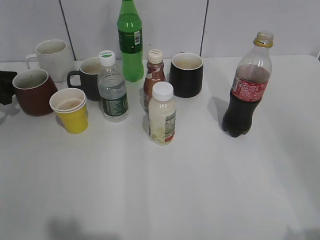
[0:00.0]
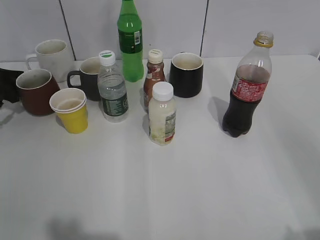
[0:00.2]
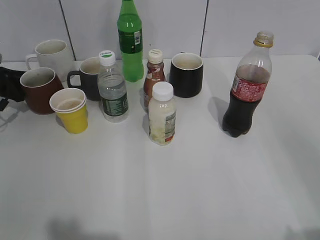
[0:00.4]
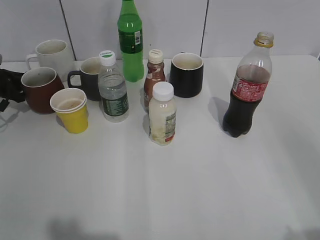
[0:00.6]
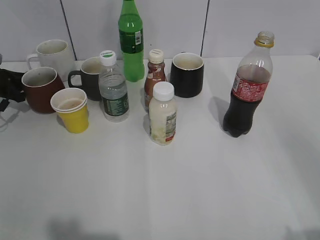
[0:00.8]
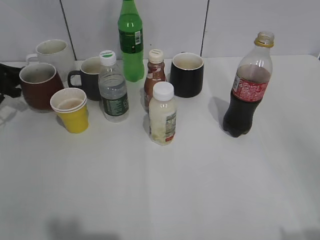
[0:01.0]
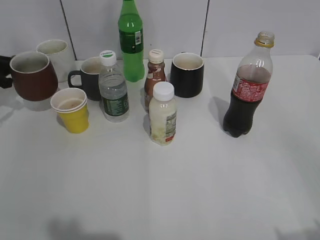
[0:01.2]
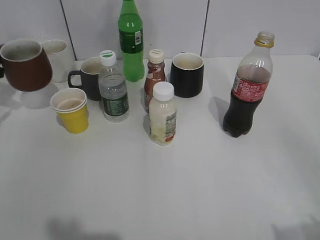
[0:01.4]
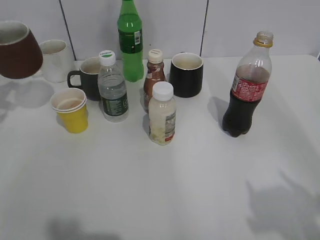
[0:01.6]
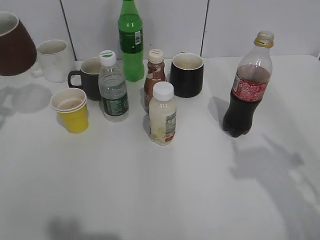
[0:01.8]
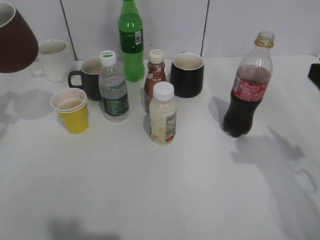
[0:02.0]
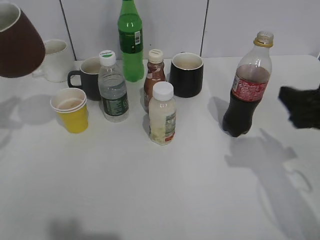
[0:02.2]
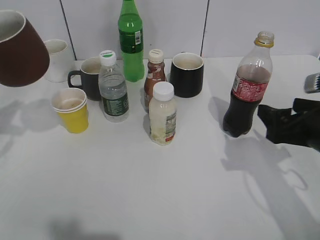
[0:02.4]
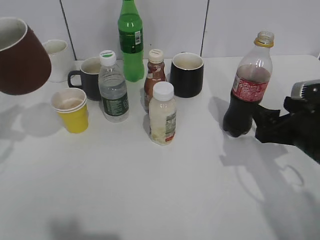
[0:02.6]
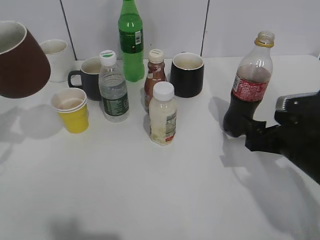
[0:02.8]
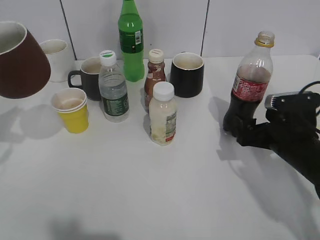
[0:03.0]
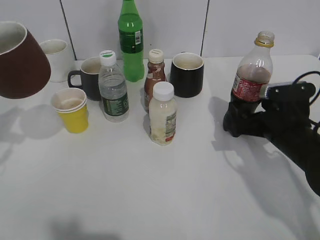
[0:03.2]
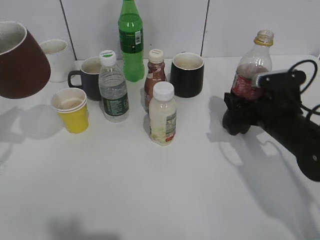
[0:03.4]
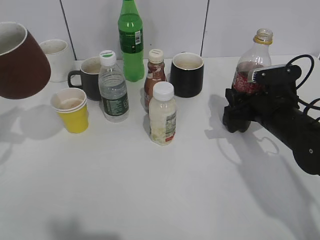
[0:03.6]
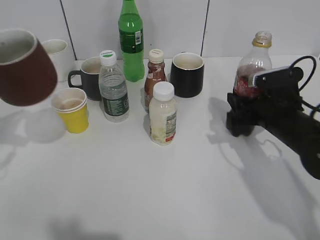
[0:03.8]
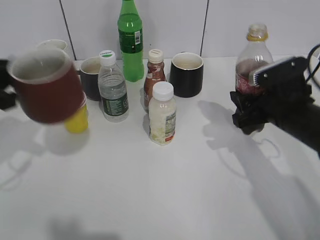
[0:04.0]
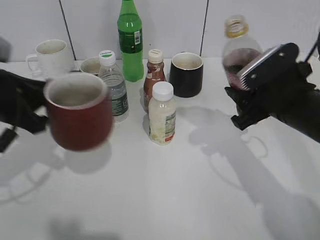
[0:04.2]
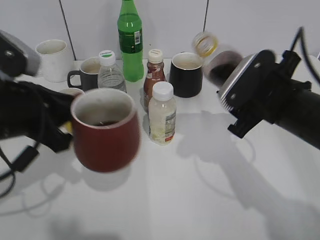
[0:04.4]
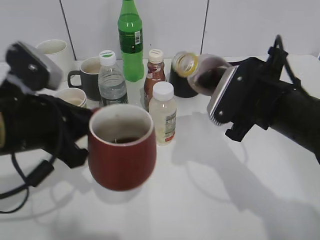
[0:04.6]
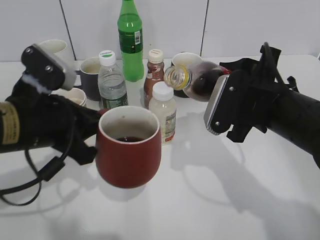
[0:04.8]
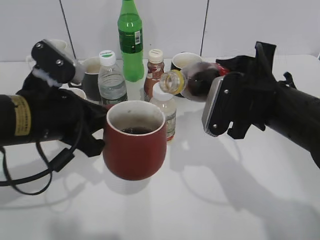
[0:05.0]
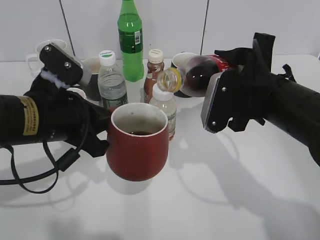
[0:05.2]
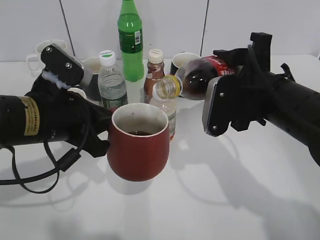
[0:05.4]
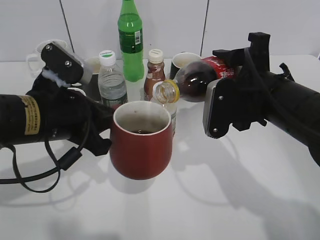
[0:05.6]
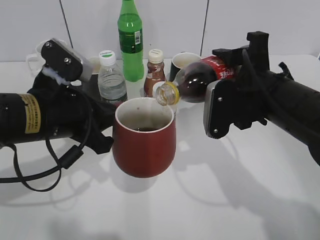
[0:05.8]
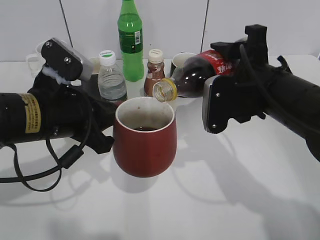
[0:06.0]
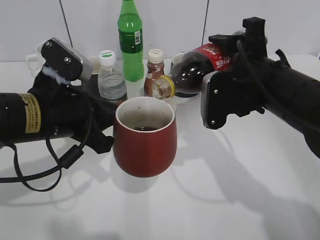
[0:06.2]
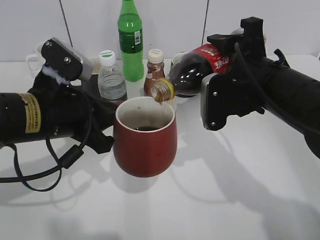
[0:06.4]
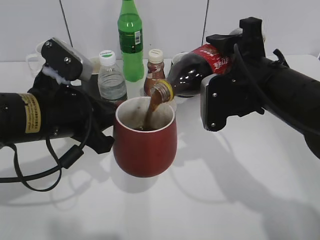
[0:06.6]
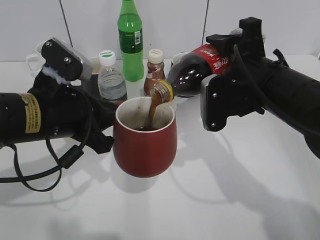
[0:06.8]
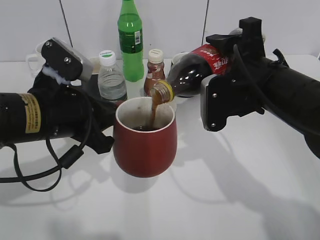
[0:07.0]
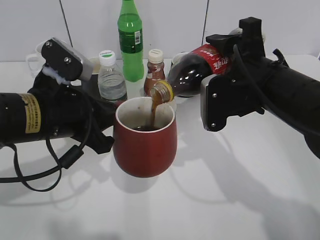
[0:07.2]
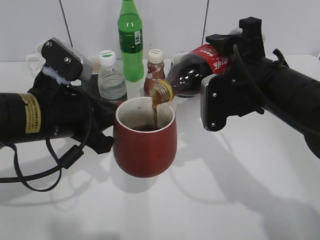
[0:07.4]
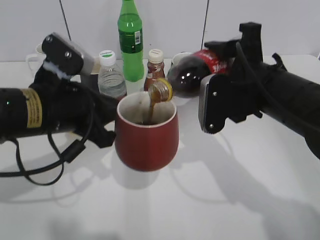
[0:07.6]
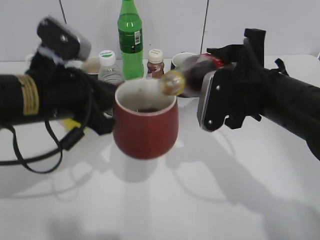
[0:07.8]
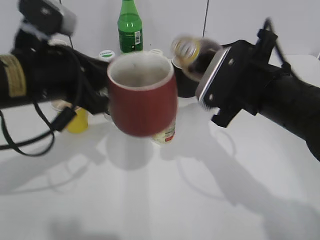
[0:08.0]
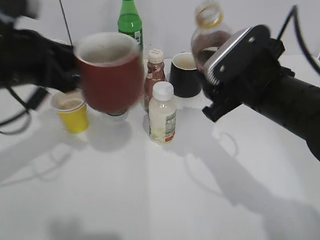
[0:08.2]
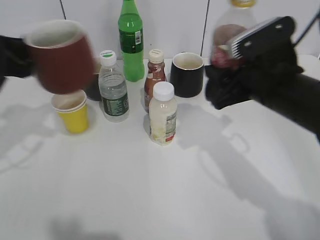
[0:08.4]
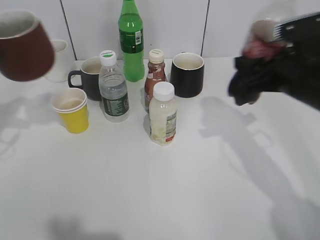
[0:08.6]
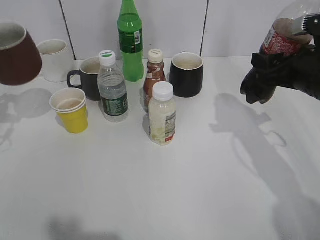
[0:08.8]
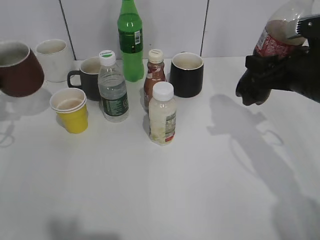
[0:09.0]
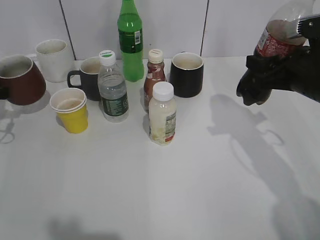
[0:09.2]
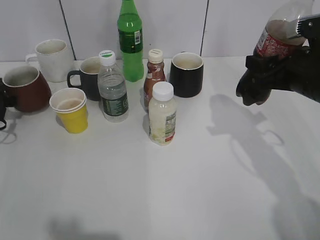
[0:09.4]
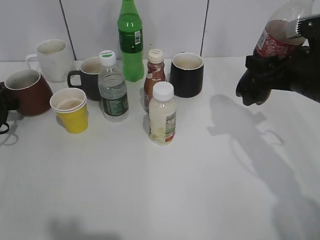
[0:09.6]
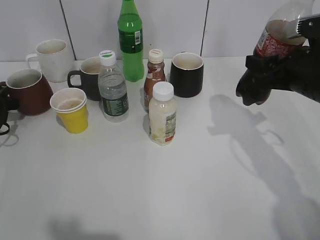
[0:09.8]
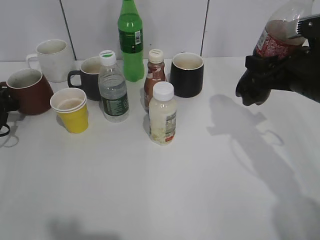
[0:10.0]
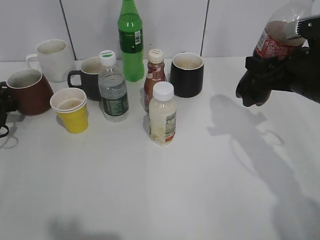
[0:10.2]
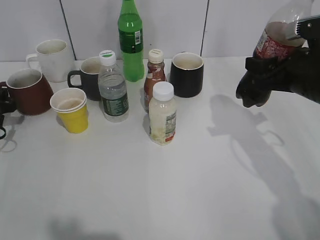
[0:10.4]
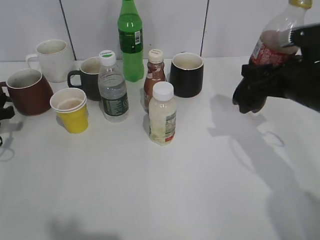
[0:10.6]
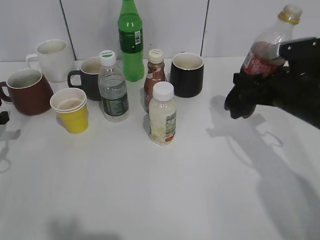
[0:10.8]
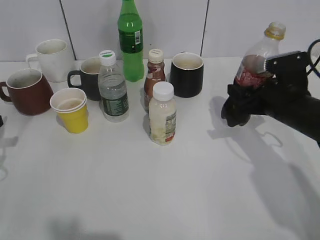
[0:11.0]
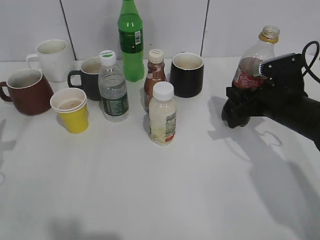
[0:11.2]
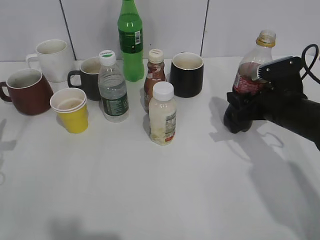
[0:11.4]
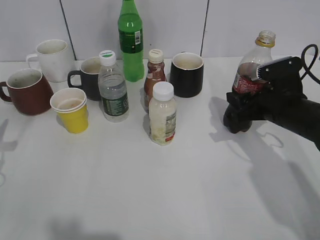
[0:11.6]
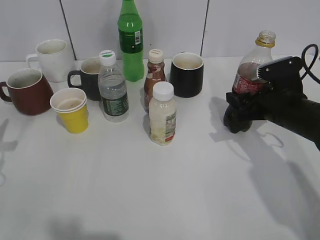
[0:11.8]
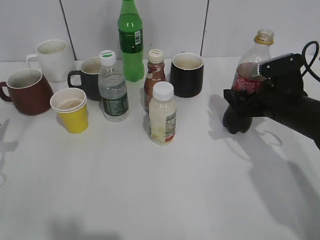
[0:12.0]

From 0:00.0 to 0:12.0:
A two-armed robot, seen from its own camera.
Step, from 0:00.8 to 0:02.6: Lift the red cup with left gripper.
Step, from 0:02.8 to 0:08.0: Pour the cola from bottle to cup with right gripper.
From 0:00.0 to 0:01.6: The left gripper heads upward and backward, covering about 15 cm, and closes its fingers; the right gripper moves about 5 cm.
From 0:01.6 to 0:03.0: The left gripper shifts approximately 15 cm backward and to the right; the right gripper heads downward and forward, covering about 30 cm, and opens up.
From 0:03.0 to 0:04.4: The right gripper goes approximately 10 cm upward and to the left, and closes up, while the left gripper travels to the right by about 10 cm.
From 0:04.4 to 0:06.0: The left gripper is displaced to the right by about 5 cm.
From 0:06.0 to 0:07.6: The grippers stay close to where they were, moving slightly.
From 0:07.6 to 0:09.0: The right gripper is displaced to the right by roughly 10 cm, while the left gripper heads to the left and forward, covering some 25 cm.
From 0:09.0 to 0:10.4: The left gripper goes some 10 cm downward, and opens up.
From 0:10.4 to 0:12.0: The right gripper moves downward, approximately 10 cm, and opens up; the left gripper is displaced backward by about 10 cm.

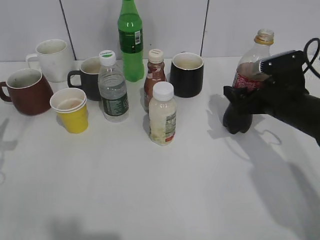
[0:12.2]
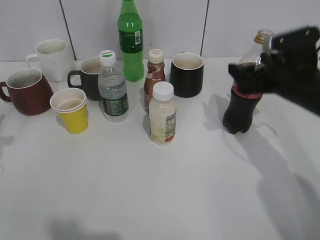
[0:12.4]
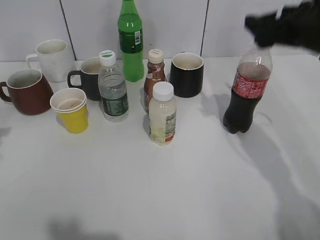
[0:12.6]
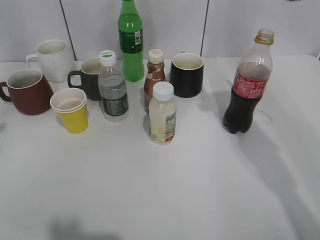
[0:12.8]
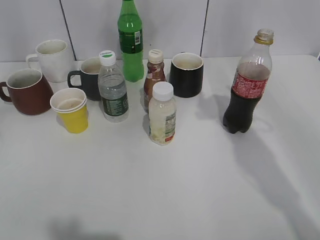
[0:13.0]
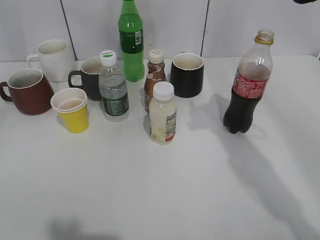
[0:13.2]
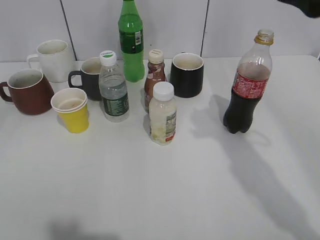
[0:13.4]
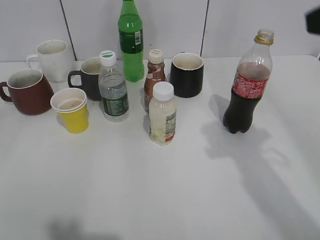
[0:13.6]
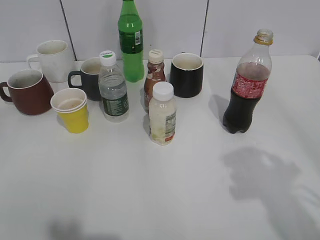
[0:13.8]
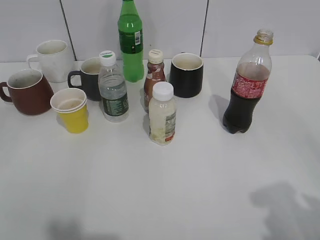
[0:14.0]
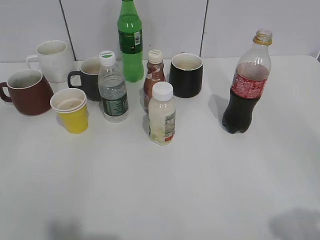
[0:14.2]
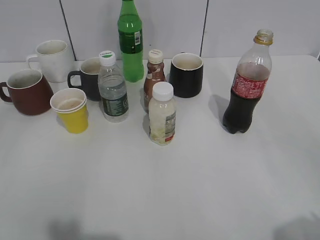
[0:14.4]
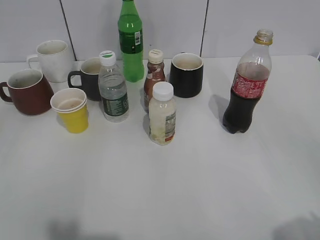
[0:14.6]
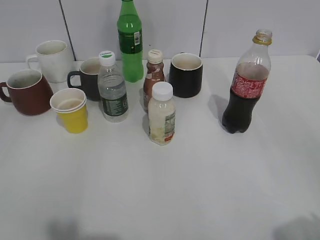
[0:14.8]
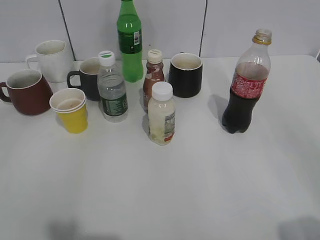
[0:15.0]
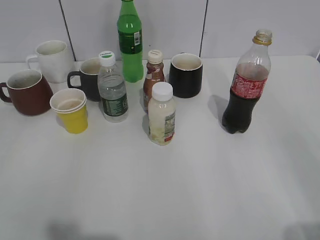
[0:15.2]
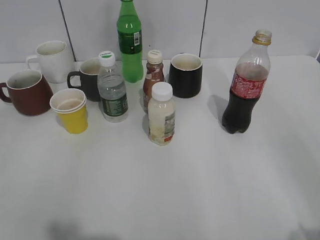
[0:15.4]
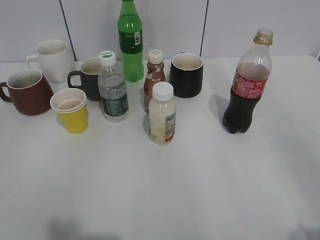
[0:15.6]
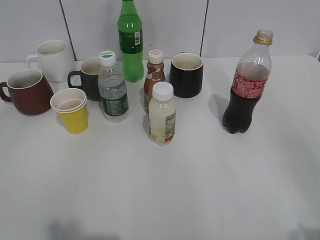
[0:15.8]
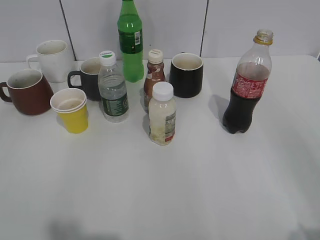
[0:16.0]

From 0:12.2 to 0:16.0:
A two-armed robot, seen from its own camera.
From 0:12.2 to 0:13.4: The left gripper is displaced backward and upward by roughly 30 cm. The right gripper moves upward, approximately 25 cm.
From 0:13.4 to 0:14.8: The right gripper shifts approximately 25 cm backward and to the right. Meanwhile the left gripper is displaced downward by approximately 5 cm.
